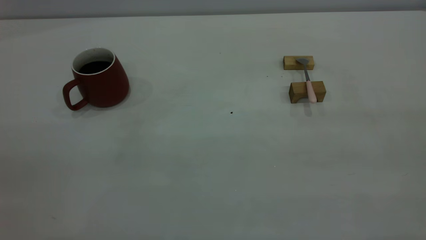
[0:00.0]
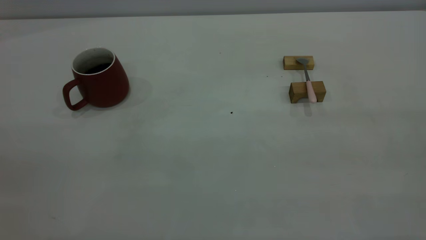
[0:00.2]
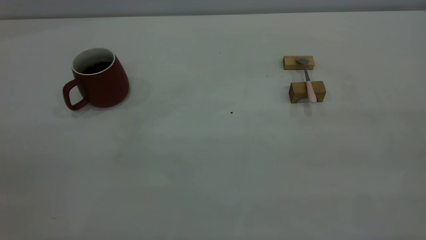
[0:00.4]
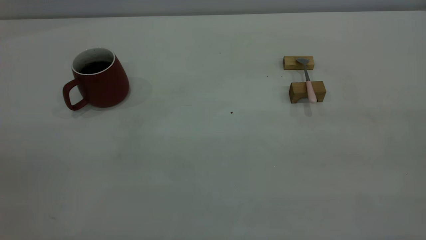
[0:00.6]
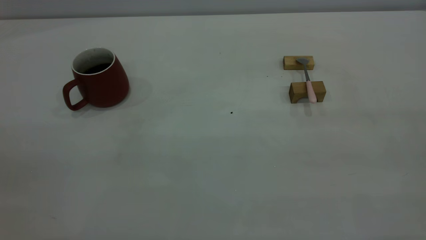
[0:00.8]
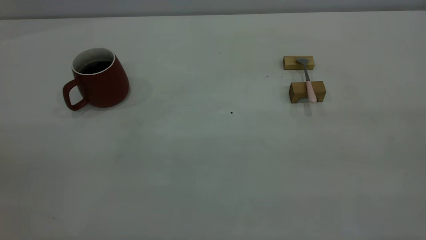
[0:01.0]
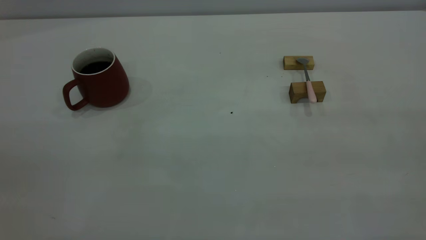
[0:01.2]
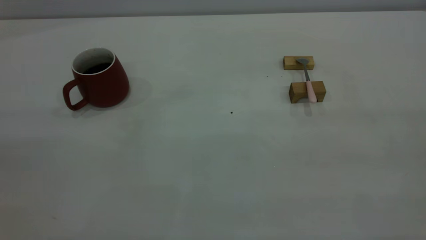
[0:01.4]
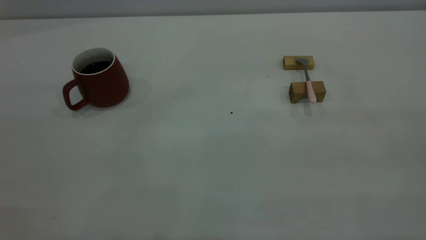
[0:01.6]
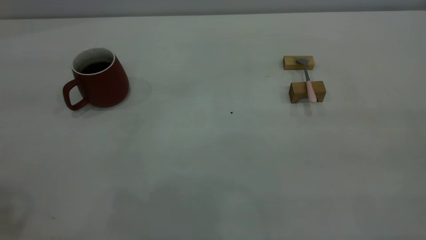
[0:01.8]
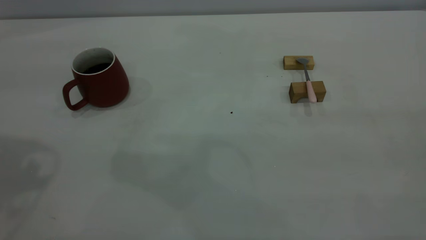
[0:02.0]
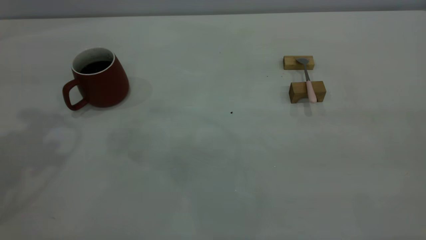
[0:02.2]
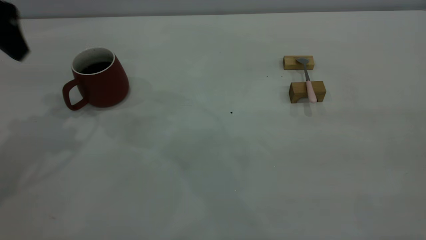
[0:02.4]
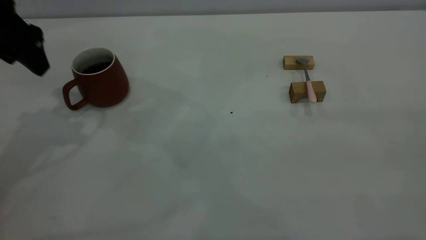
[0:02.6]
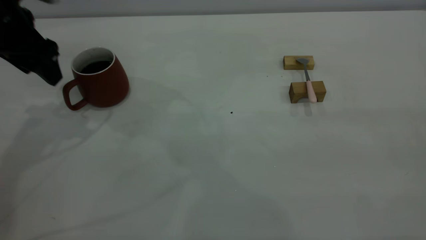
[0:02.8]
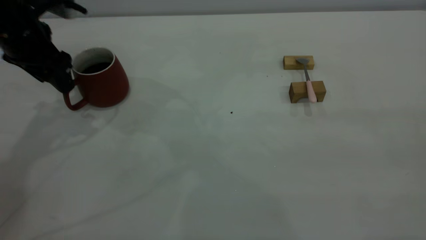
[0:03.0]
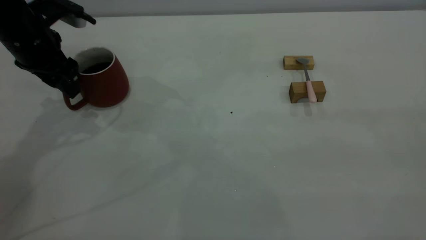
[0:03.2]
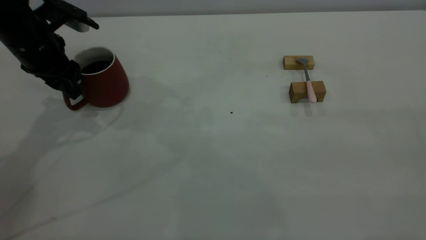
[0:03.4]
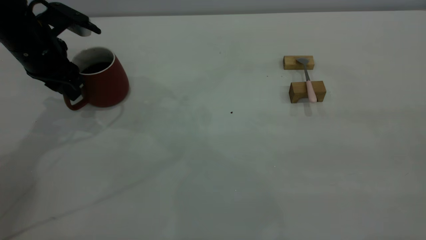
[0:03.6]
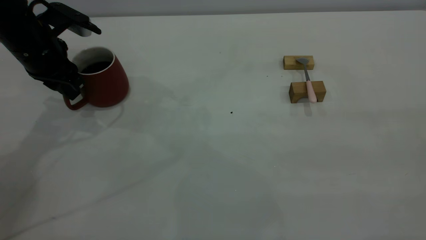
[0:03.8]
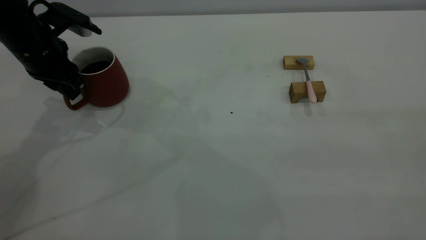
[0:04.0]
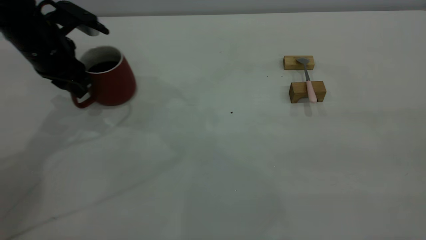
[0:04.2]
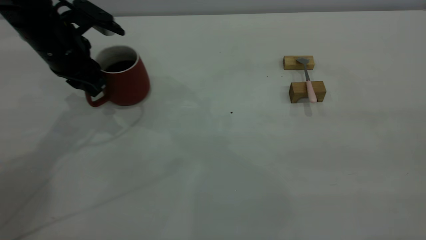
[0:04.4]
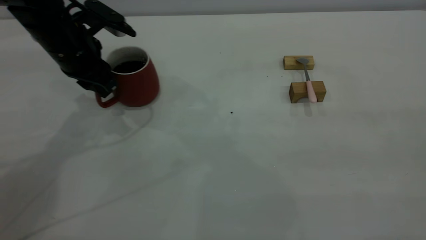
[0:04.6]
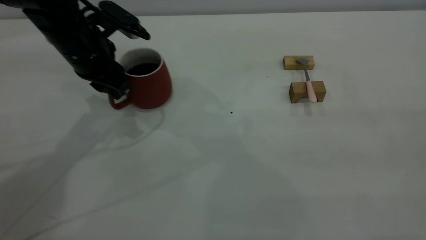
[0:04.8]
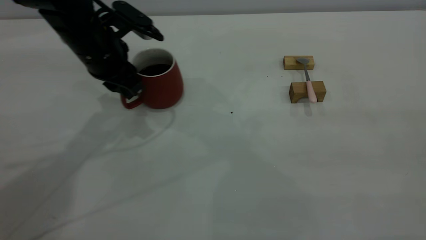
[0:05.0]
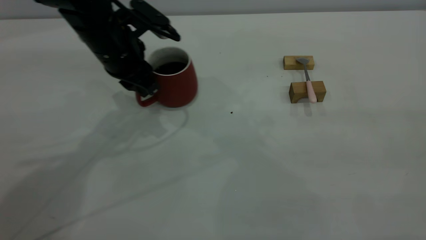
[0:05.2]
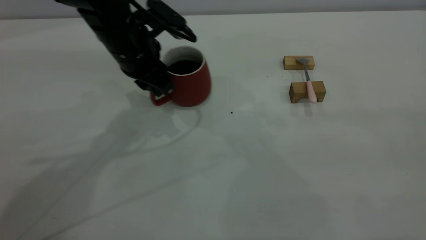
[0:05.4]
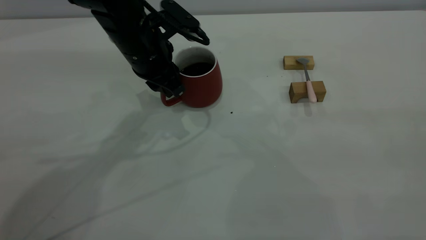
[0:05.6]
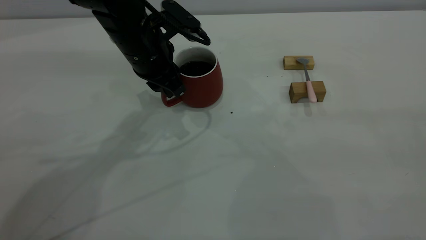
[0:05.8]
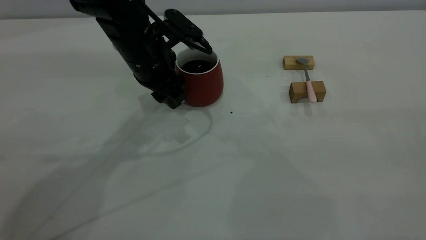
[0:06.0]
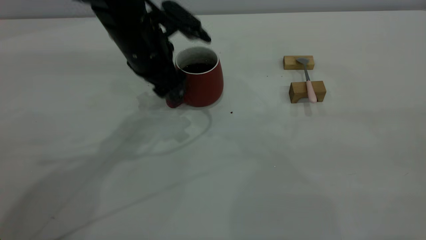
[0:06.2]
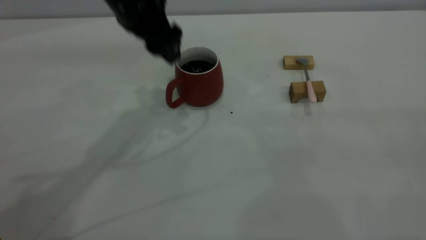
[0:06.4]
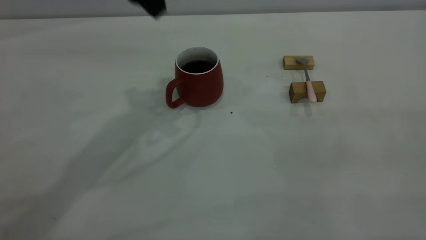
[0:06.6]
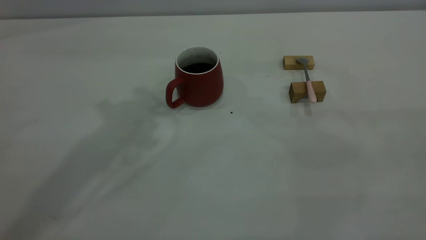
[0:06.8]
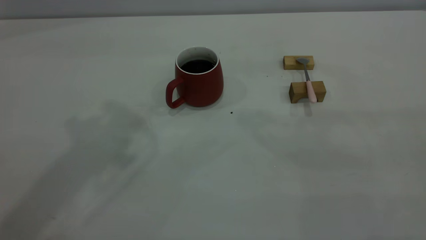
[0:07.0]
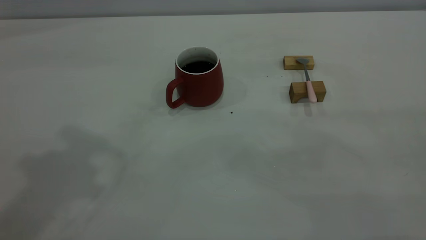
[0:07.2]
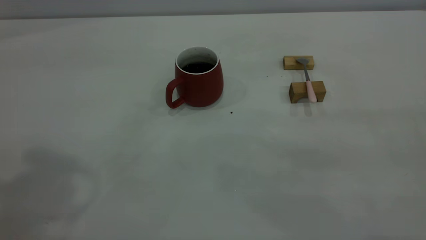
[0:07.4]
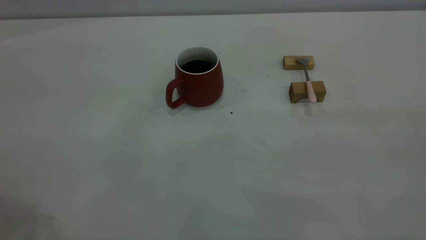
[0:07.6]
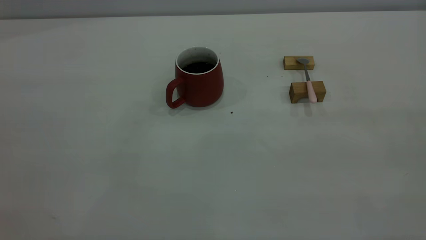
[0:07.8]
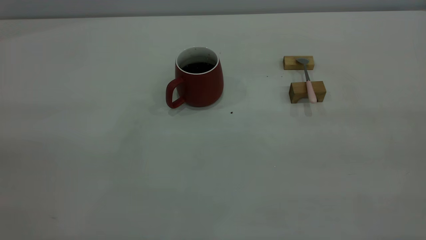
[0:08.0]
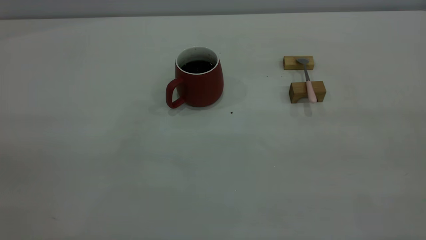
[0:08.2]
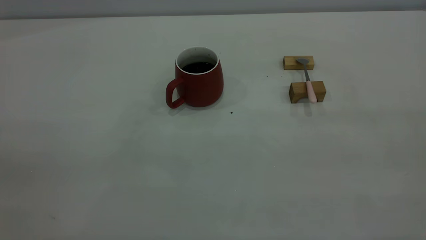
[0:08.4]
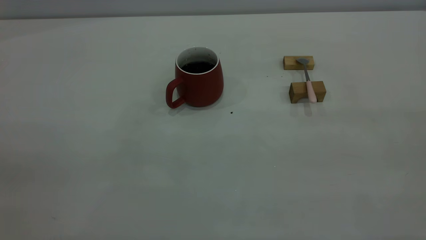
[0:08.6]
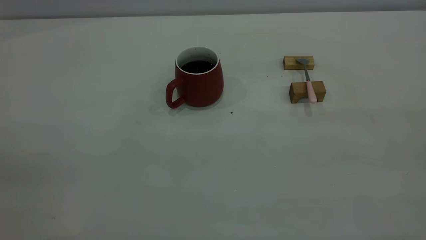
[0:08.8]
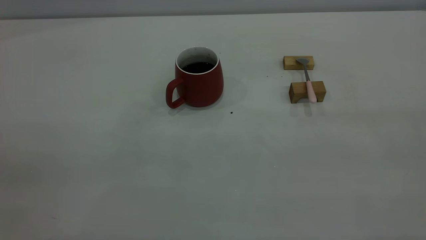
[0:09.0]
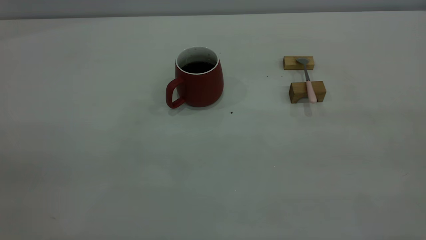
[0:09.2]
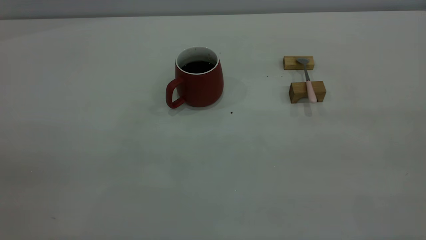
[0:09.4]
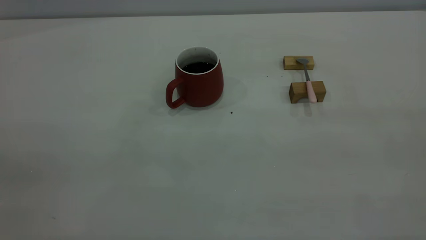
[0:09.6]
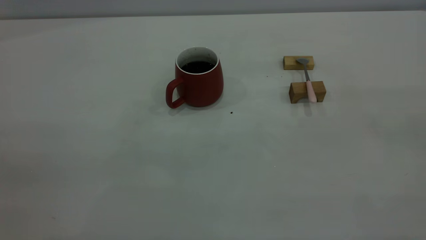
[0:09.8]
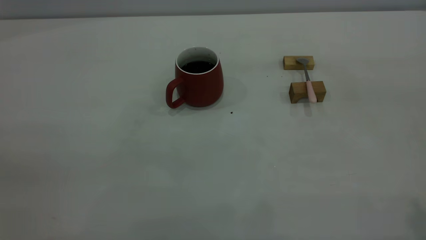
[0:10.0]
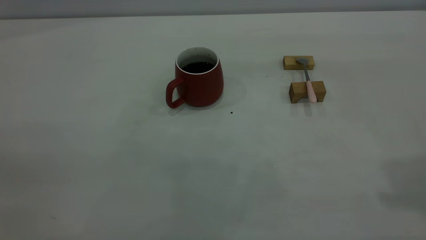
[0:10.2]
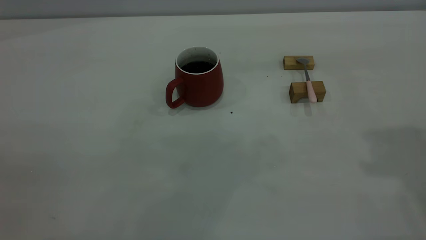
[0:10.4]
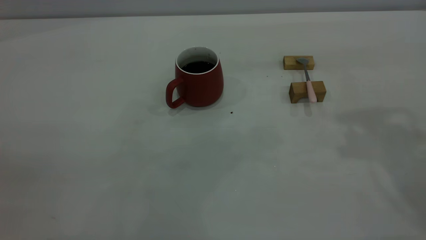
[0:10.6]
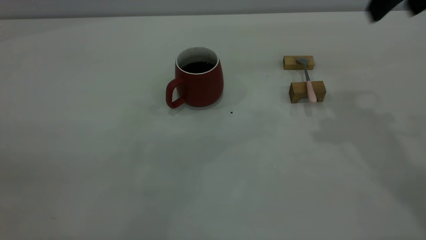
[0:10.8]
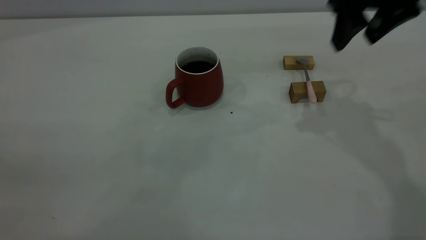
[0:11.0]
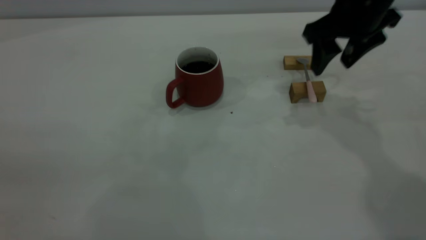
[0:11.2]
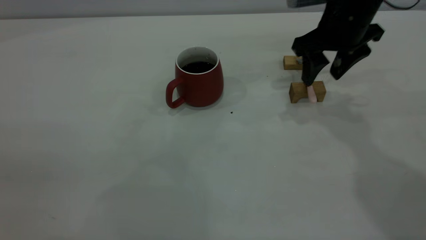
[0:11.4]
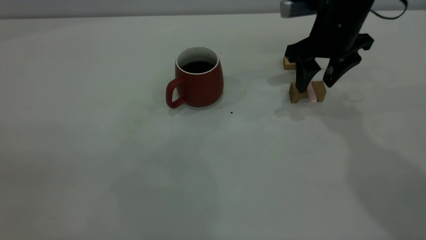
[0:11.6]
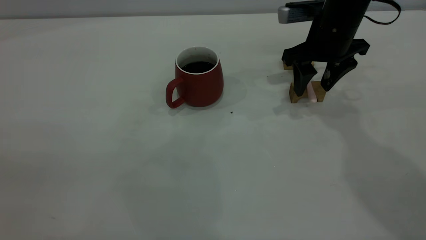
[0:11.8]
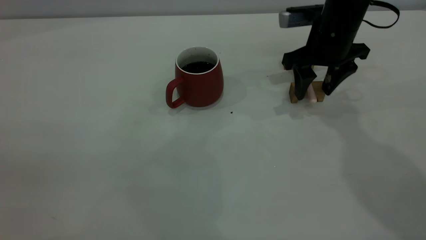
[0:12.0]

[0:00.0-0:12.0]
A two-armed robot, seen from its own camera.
Step, 0:00.0 to 0:06.4: Move the cup with coffee to the center of view.
0:01.6 to 0:03.0: The left gripper shifts approximately 35 cm forward and downward.
0:03.0 to 0:04.4: The left gripper shifts by roughly 5 cm, and closes up.
0:04.4 to 0:06.0: The left gripper goes about 10 cm to the right, and opens its fingers.
0:06.0 to 0:07.6: The left gripper shifts roughly 40 cm upward, backward and to the left.
0:10.4 to 0:12.0: The right gripper is displaced downward, forward and to the left by about 30 cm.

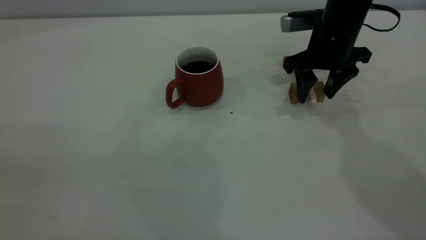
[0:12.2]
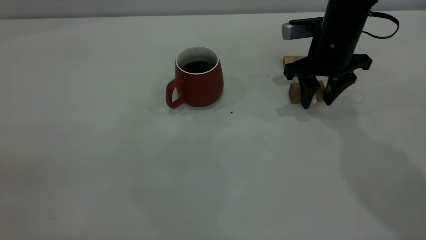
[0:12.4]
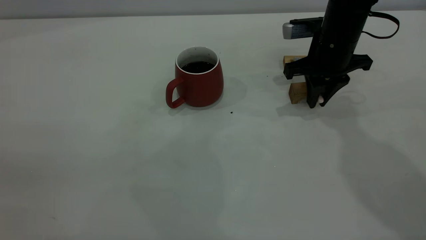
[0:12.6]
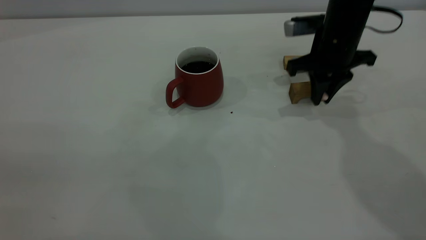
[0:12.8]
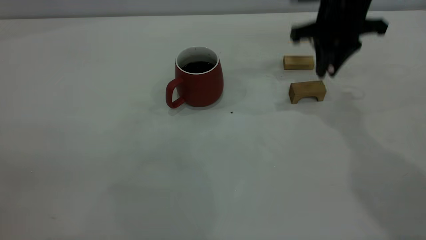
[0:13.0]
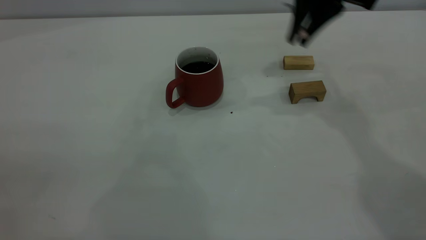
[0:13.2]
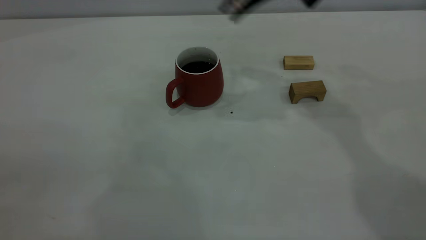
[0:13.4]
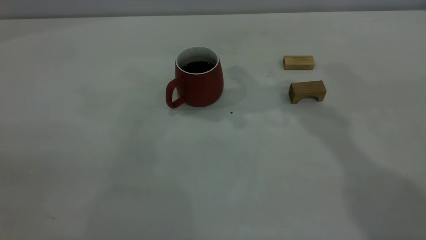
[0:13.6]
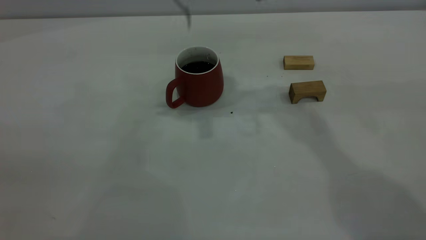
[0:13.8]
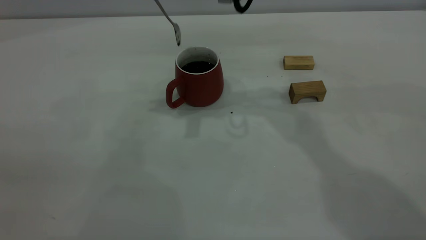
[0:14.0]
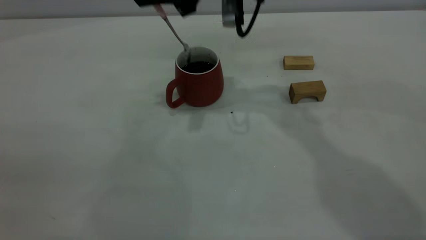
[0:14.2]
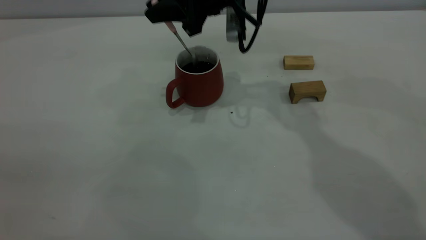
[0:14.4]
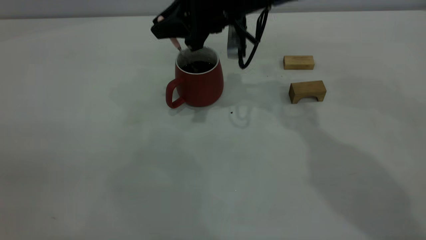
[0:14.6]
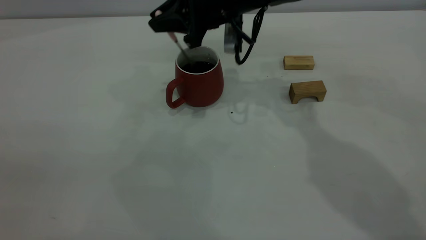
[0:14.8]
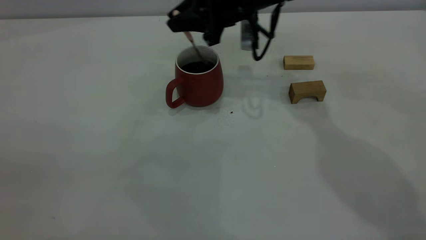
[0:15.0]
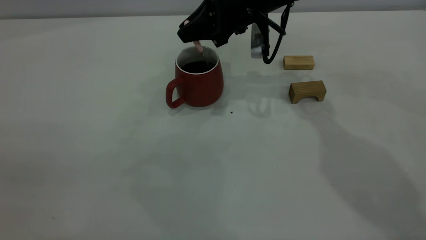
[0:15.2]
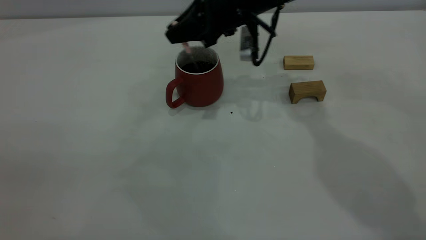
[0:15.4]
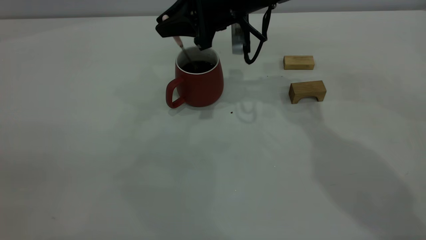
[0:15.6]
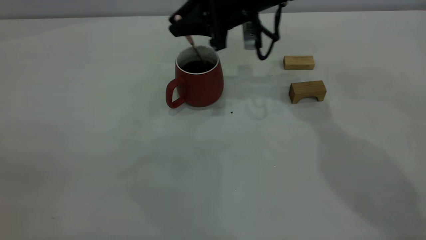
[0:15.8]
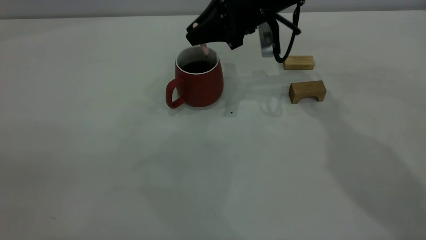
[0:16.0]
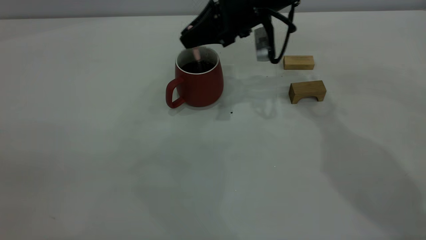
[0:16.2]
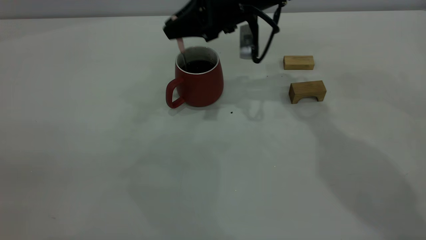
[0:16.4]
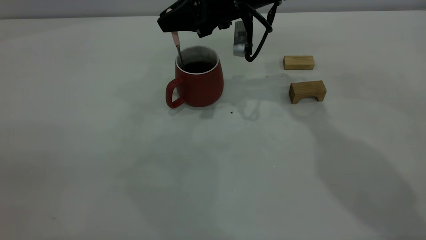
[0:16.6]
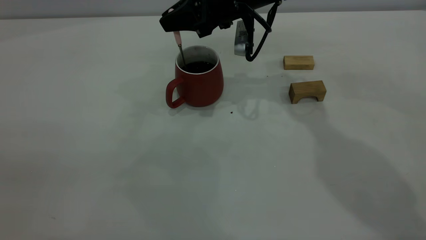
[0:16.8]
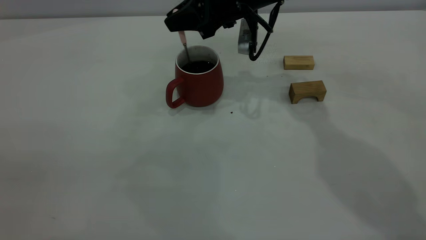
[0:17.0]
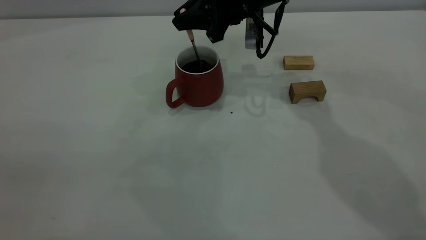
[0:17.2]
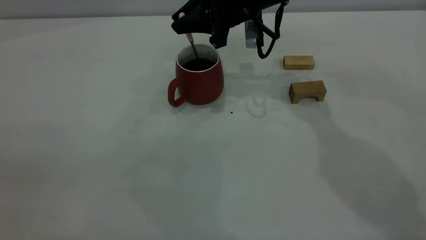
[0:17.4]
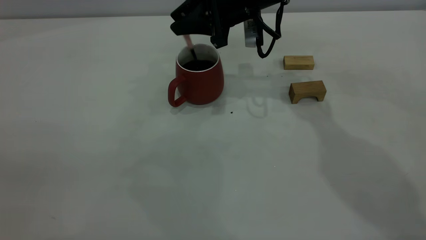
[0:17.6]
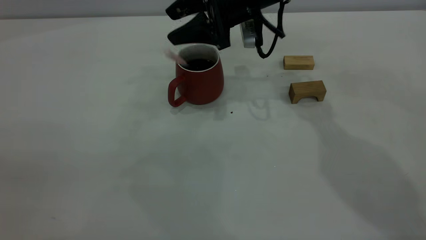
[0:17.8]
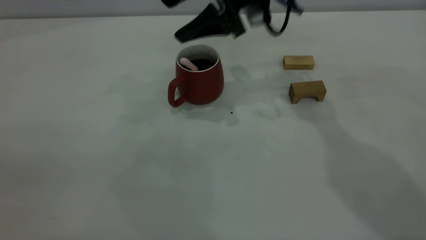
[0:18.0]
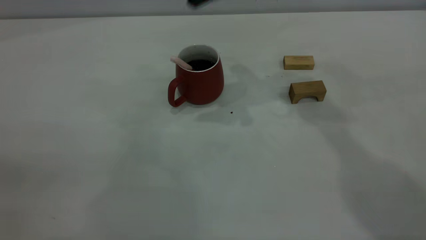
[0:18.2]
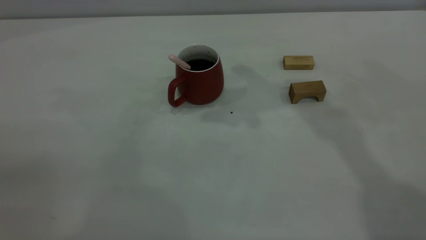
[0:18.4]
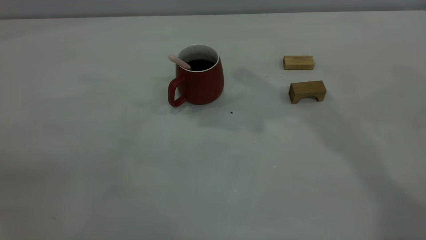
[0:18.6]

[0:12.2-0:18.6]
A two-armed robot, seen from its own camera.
Step, 0:13.0 to 0:17.8: Stir the coffee in the cup.
0:12.2 to 0:13.8: The right gripper is displaced upward and to the left by about 20 cm, and closes its fingers.
0:13.8 to 0:15.4: The right gripper moves downward, approximately 10 cm.
0:15.4 to 0:17.0: There are only small adjustments of the grippers.
0:17.0 to 0:18.6: The right gripper goes about 25 cm upward, and opens.
